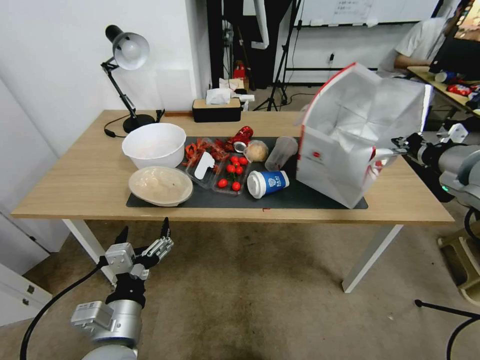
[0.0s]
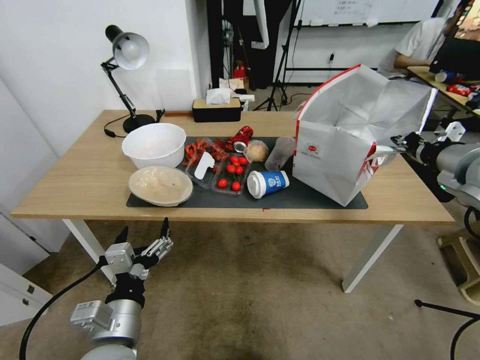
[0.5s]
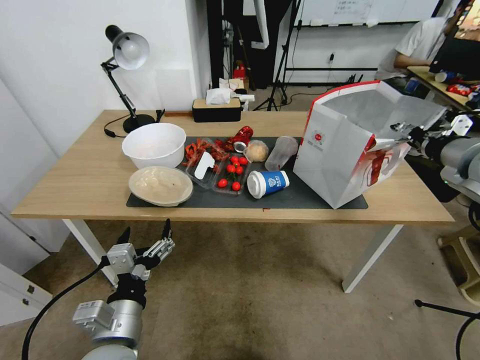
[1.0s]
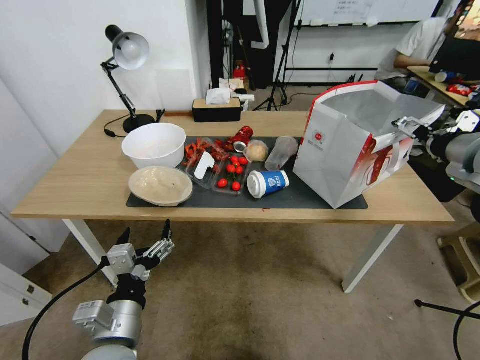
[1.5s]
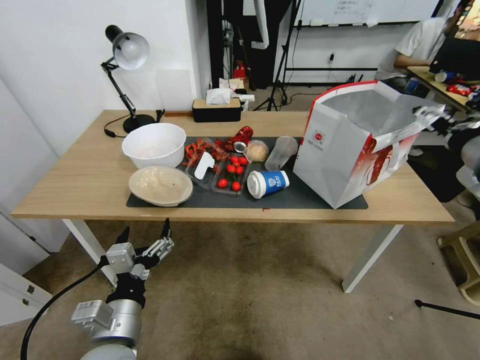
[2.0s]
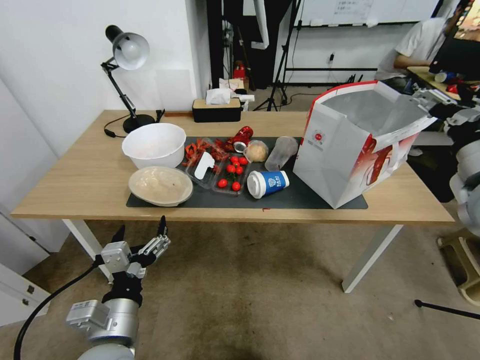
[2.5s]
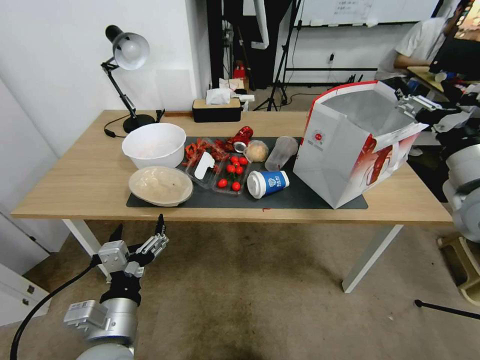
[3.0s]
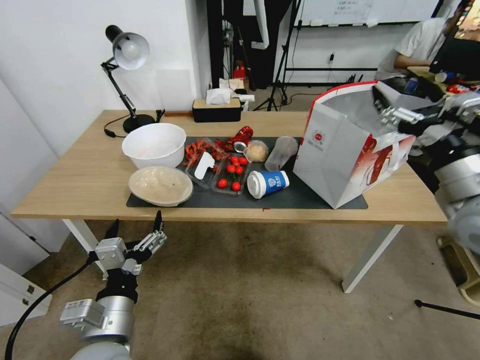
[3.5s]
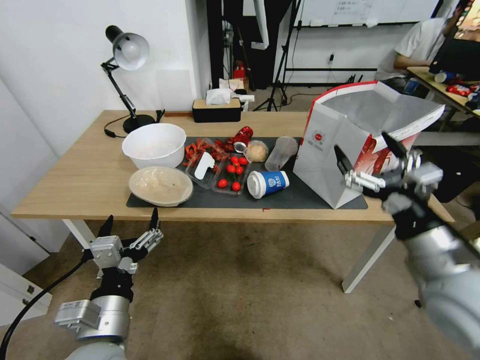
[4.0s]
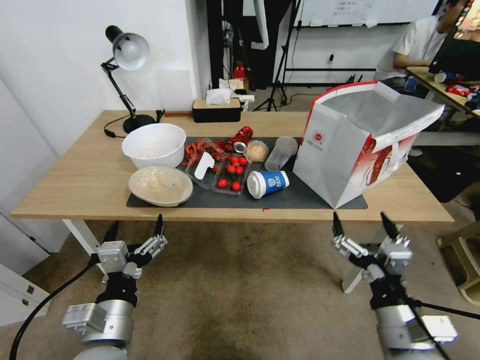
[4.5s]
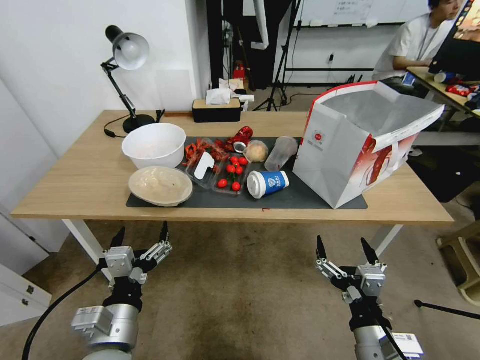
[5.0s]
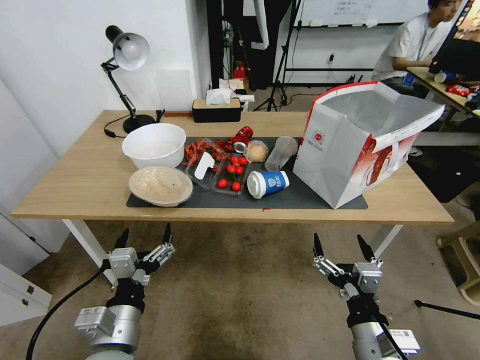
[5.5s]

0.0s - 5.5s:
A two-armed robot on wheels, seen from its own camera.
Task of the whole recording: Pick up the food delivery bag from the floor and place it on the table.
0.0s - 2.0s: The right gripper opens its fingers.
2.0s - 3.5s: The right gripper is displaced downward by approximately 5 cm.
3.5s - 5.5s: The right gripper shifts roughly 30 cm downward, backward and to the left.
